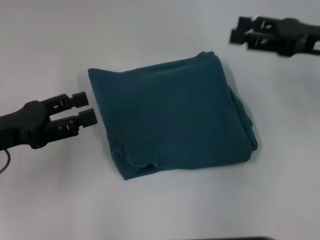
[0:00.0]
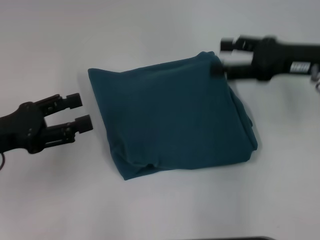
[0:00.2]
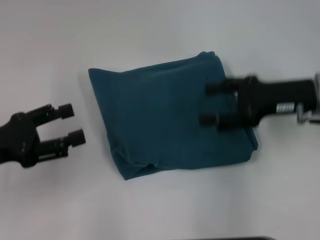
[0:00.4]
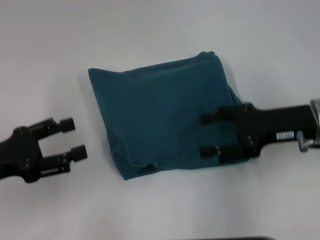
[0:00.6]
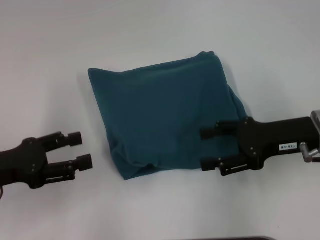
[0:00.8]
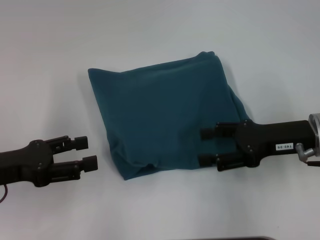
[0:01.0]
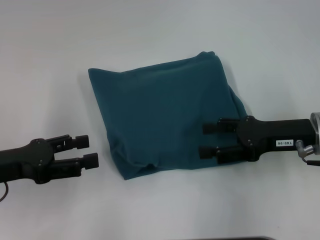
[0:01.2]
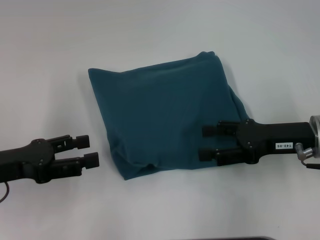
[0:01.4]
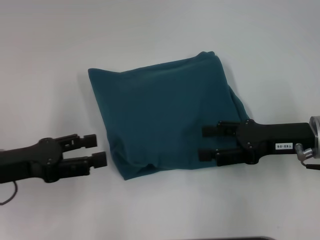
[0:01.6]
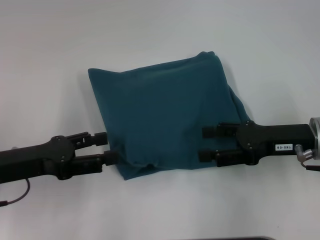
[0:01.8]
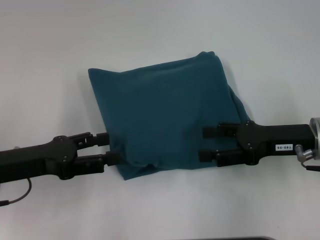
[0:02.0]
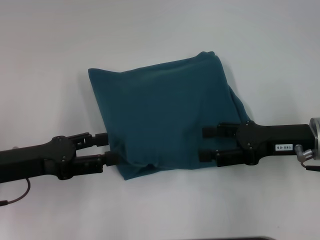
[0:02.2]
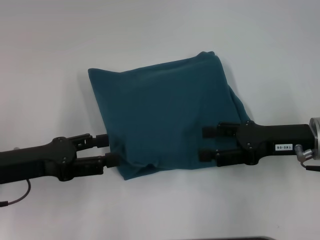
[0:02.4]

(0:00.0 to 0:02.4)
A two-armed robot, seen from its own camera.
0:00.0 - 0:01.2: The right gripper heads downward and backward, covering some 10 cm.
0:01.2 - 0:02.4: The grippers move only a little.

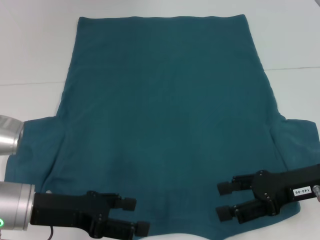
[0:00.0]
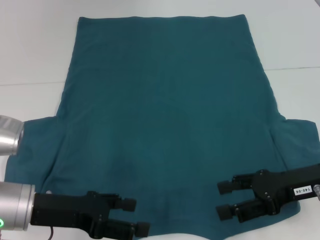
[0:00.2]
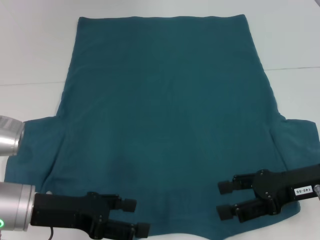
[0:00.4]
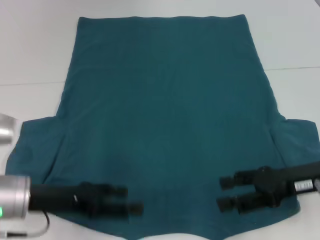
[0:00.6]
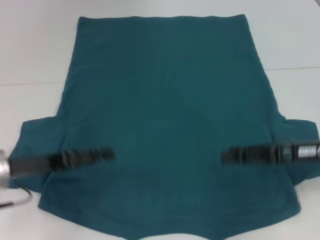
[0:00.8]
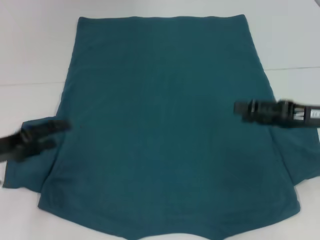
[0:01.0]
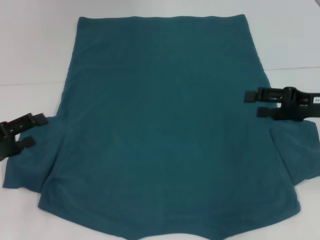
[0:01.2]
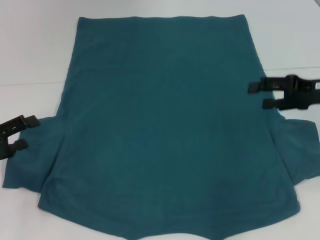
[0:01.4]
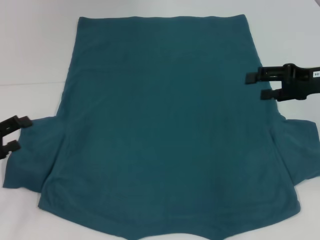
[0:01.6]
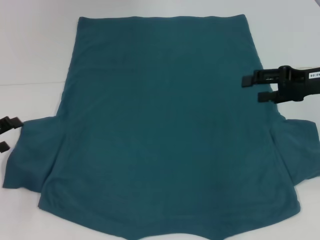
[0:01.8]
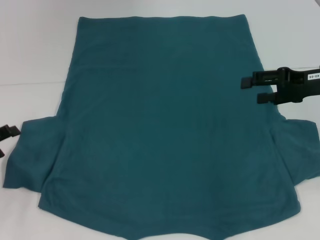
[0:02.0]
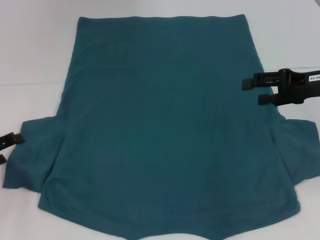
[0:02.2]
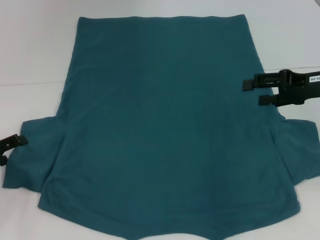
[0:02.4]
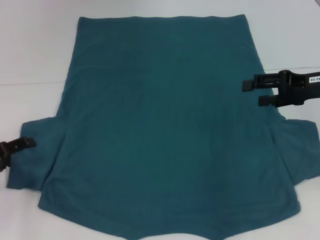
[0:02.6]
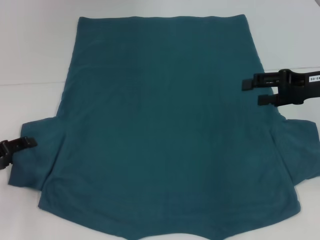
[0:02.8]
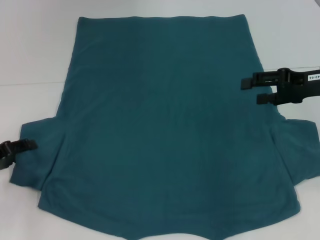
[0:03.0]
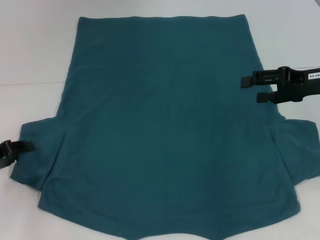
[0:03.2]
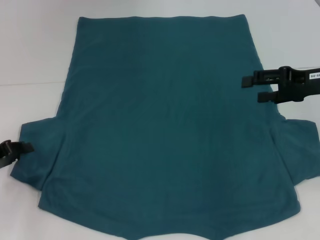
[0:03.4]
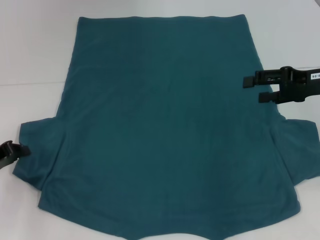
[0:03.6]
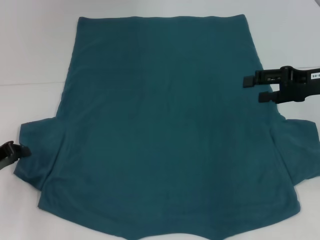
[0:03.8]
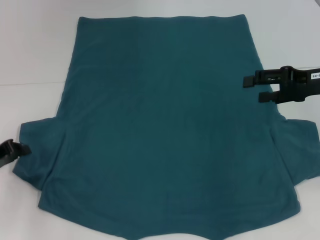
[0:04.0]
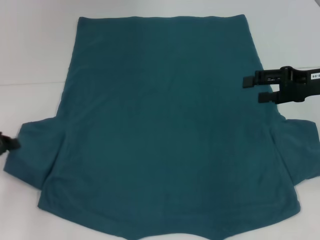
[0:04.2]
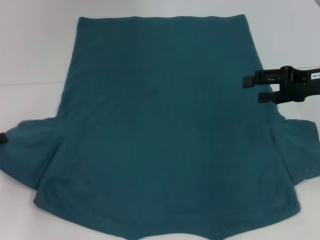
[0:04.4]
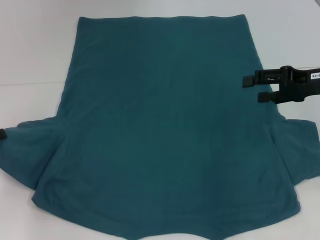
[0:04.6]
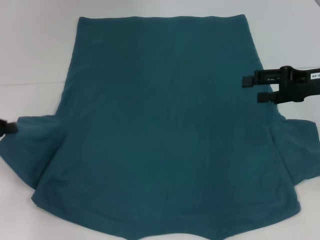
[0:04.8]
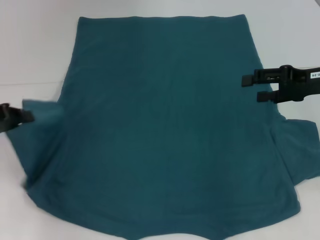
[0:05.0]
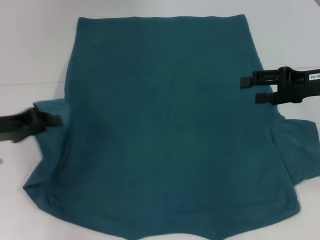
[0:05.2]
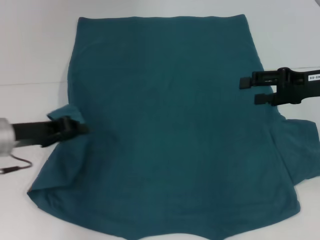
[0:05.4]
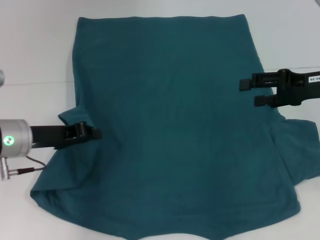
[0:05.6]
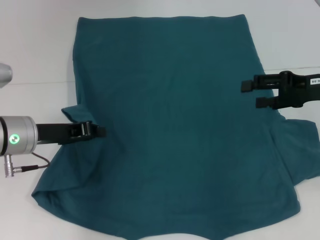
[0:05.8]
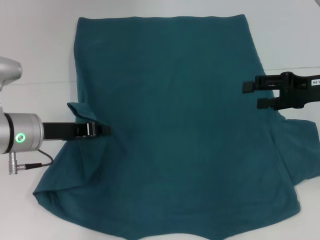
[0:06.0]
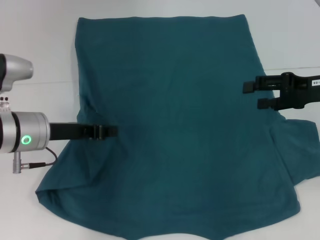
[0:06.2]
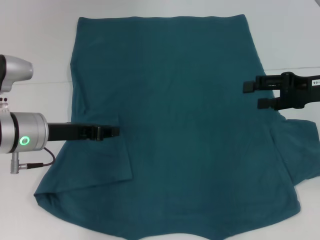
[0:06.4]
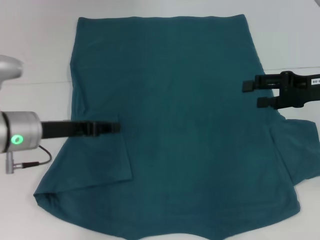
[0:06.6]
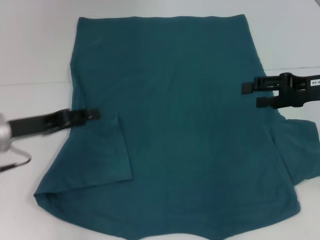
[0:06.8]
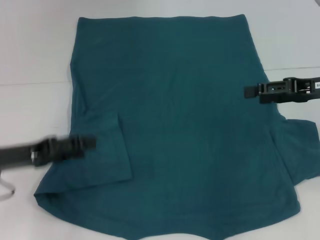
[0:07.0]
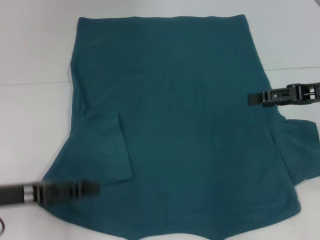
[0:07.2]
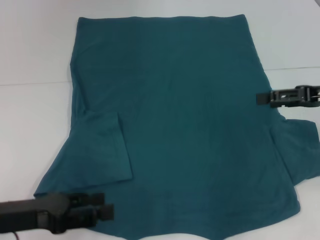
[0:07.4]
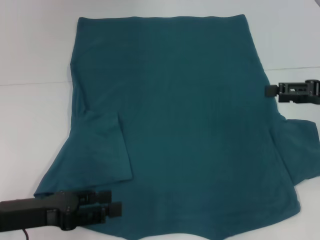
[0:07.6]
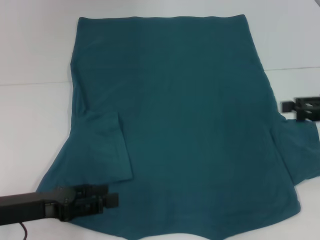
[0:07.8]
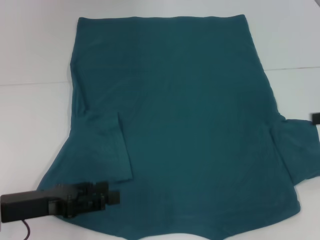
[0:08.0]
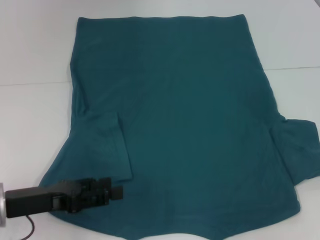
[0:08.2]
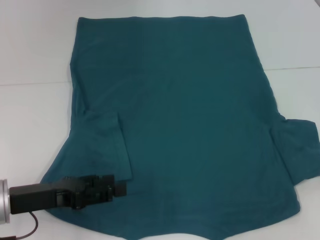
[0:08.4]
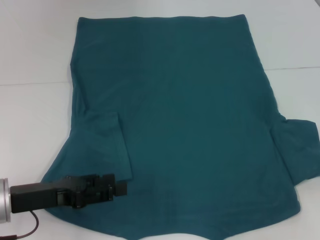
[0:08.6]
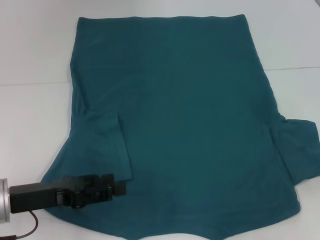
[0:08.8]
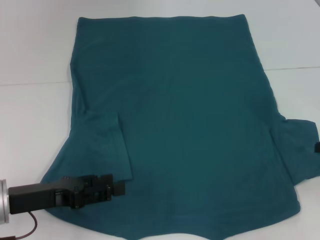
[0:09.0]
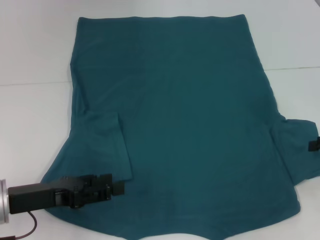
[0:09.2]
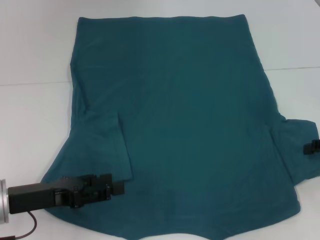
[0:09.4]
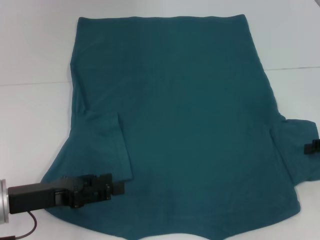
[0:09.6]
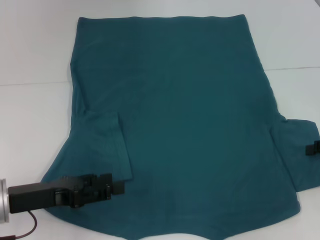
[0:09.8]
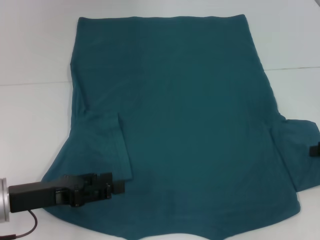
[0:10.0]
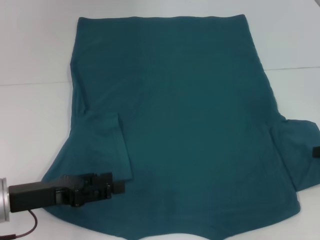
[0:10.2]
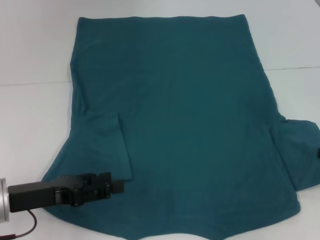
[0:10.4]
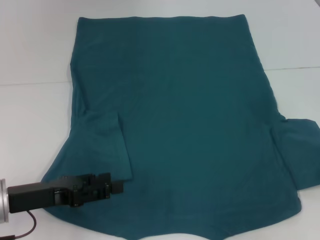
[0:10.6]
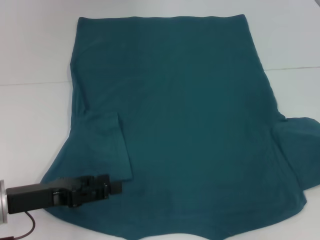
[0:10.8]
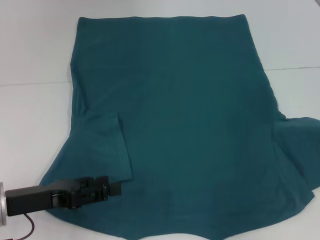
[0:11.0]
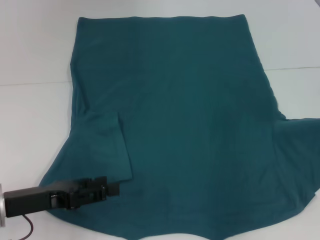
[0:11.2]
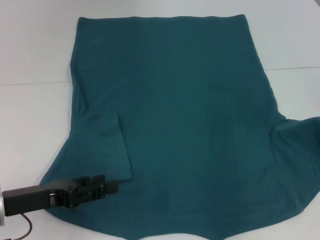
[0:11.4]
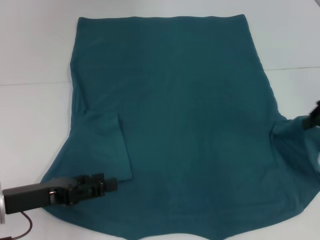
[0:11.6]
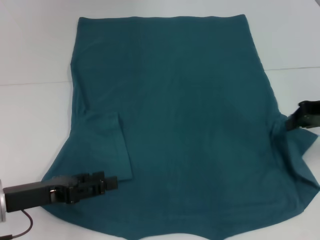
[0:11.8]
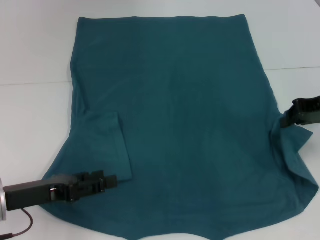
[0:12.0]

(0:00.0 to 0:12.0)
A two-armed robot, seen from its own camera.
Step, 0:00.0 - 0:06.2: Fold the bottom left sleeve with your left hand.
0:00.0 - 0:01.6: The left gripper moves to the left, approximately 15 cm. The right gripper heads forward, to the right and upward, covering about 15 cm.
0:01.6 - 0:03.0: There are only small adjustments of the grippers.
0:03.0 - 0:04.4: The left gripper closes its fingers.
0:04.4 - 0:06.0: The left gripper moves to the right, approximately 15 cm.
0:06.0 - 0:07.6: The left gripper heads backward, covering roughly 10 cm, and opens.
0:07.6 - 0:09.0: The right gripper travels to the right by approximately 5 cm.
0:10.4 - 0:12.0: The right gripper travels to the left, forward and upward by approximately 10 cm.

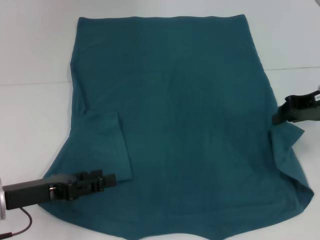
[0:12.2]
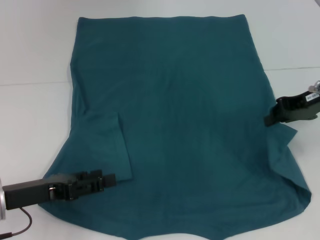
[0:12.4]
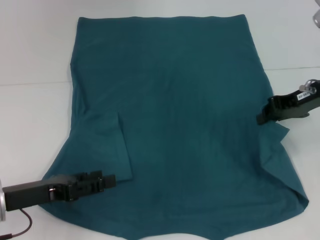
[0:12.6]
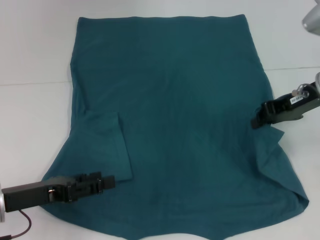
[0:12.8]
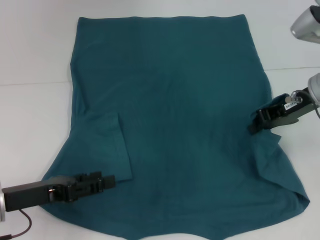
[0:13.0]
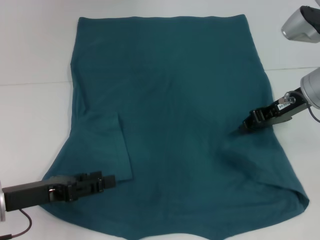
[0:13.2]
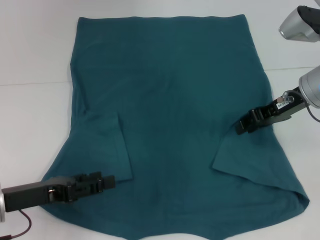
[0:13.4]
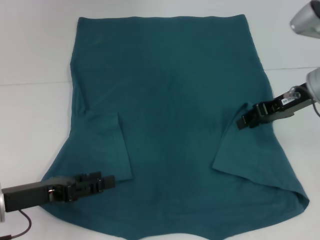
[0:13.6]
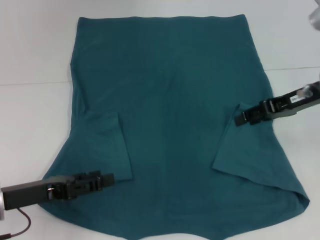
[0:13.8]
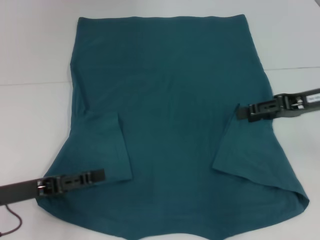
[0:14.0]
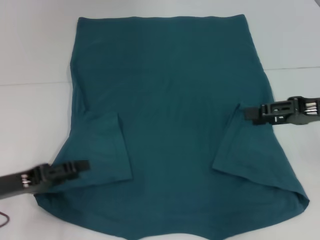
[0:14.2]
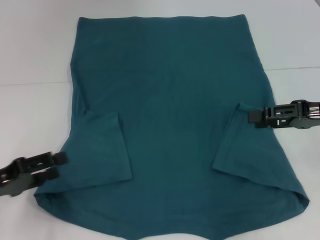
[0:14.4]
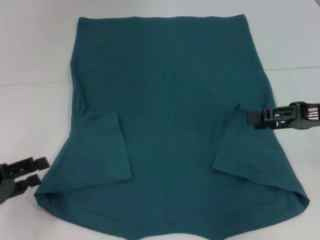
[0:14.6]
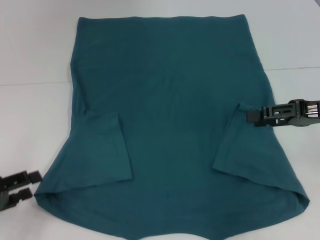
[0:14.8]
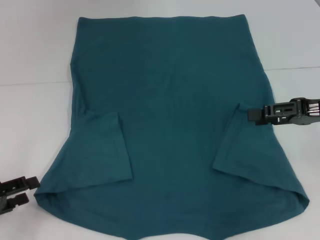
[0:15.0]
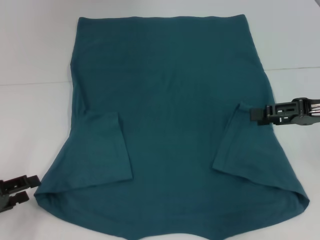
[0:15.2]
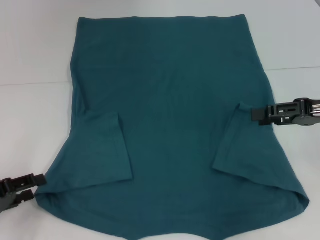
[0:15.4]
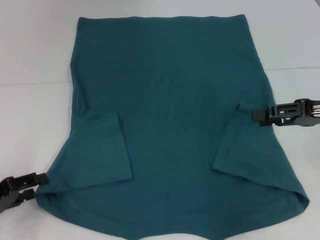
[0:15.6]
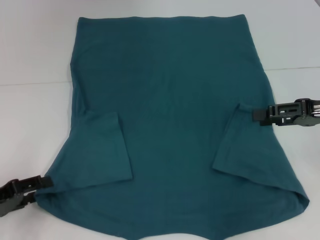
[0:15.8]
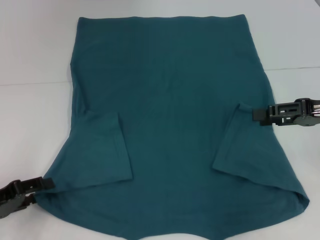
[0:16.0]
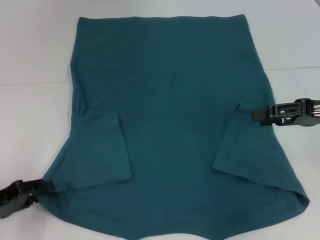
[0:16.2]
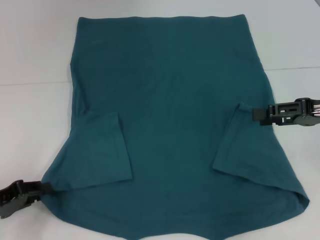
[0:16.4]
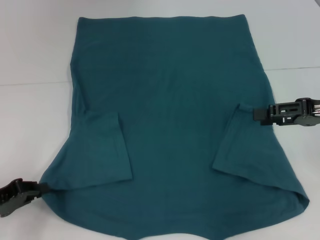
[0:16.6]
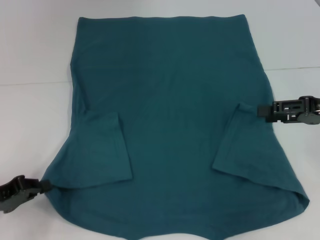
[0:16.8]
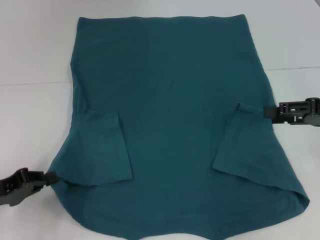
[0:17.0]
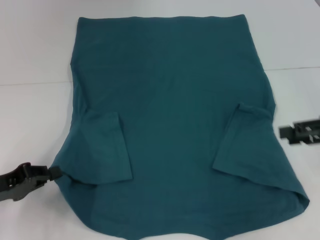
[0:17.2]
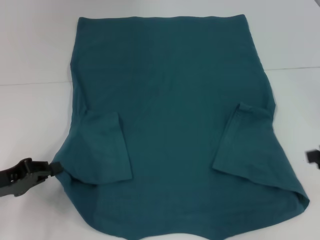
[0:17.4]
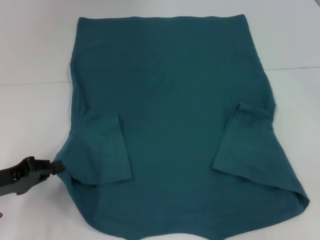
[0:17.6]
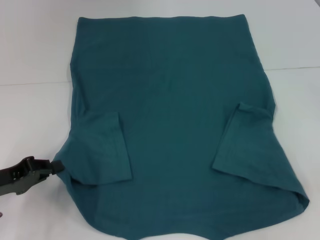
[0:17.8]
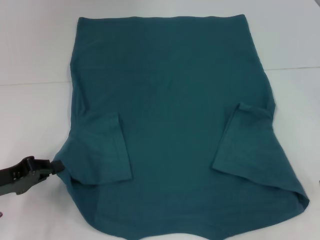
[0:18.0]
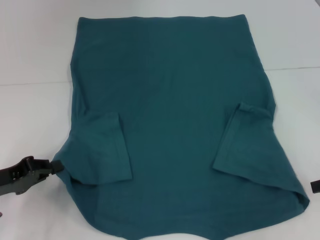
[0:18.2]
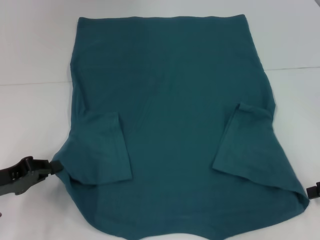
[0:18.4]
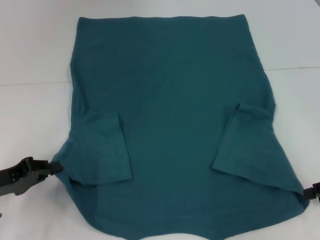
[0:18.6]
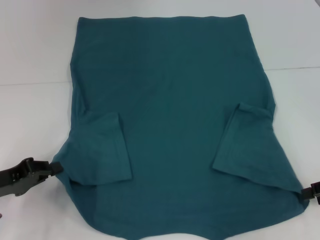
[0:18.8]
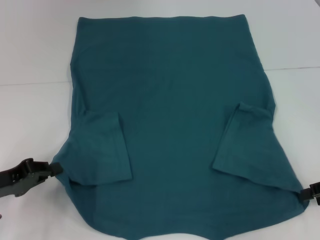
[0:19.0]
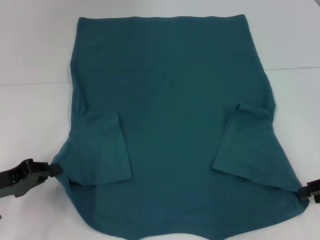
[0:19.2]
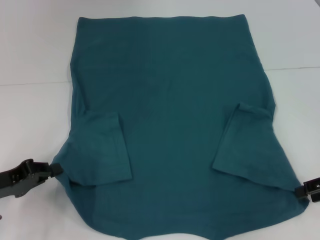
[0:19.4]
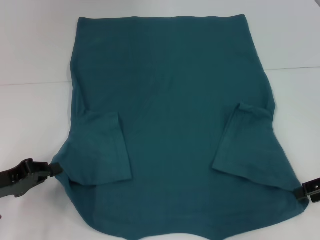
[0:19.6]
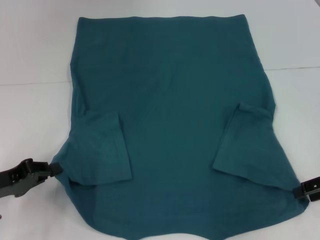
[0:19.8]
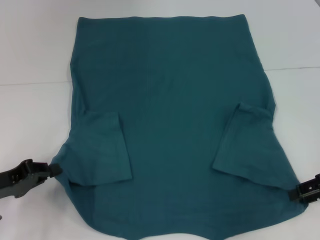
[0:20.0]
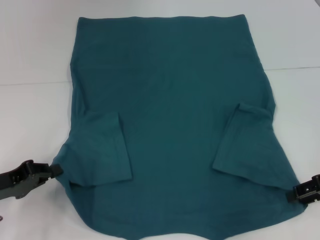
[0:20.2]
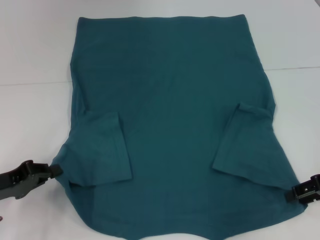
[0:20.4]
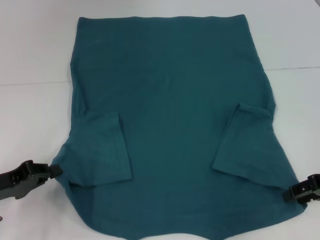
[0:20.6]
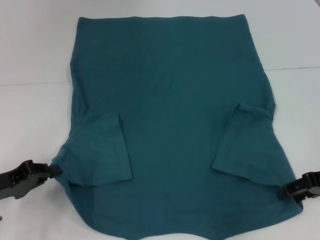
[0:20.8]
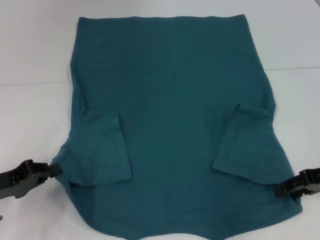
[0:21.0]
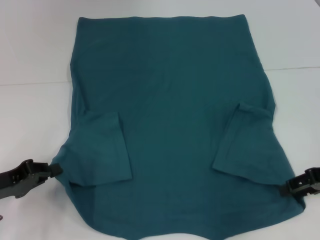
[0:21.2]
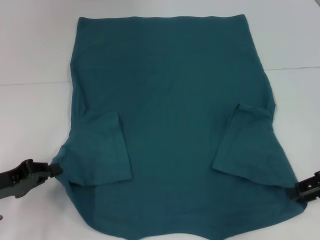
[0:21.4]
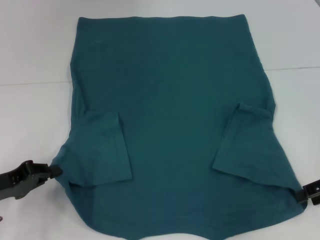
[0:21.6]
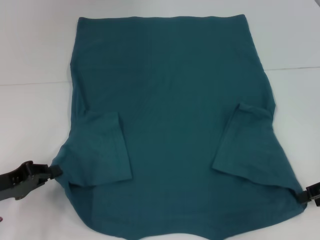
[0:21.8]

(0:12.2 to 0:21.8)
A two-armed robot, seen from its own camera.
Step, 0:14.0 - 0:16.6: Grab the bottom left corner with your left hand.
0:12.2 - 0:13.8: The grippers make only small movements.
0:13.8 - 0:15.4: The right gripper travels backward by approximately 5 cm; the left gripper heads to the left, covering roughly 10 cm.
0:15.4 - 0:17.0: The left gripper closes its fingers.
0:17.0 - 0:18.6: The right gripper moves roughly 5 cm.
0:18.6 - 0:21.8: There are only small adjustments of the grippers.
